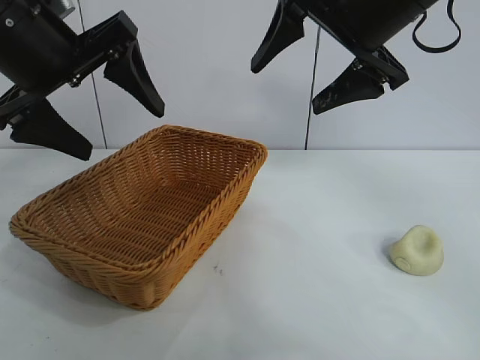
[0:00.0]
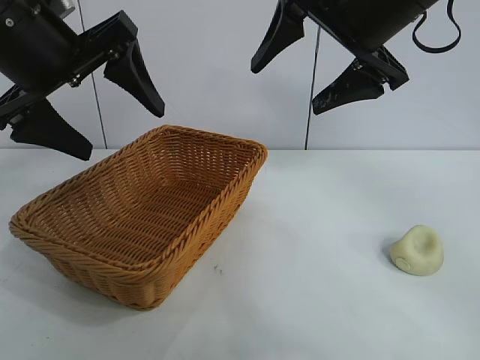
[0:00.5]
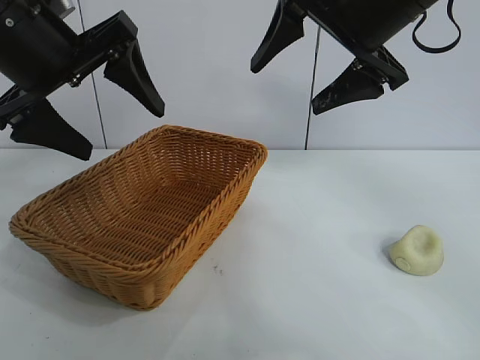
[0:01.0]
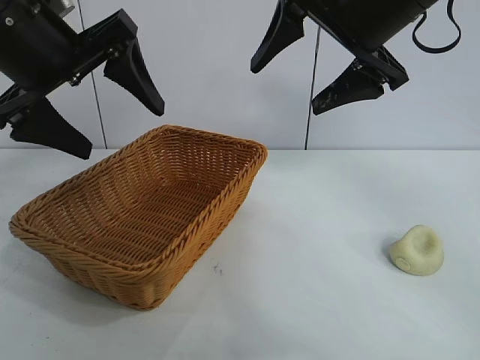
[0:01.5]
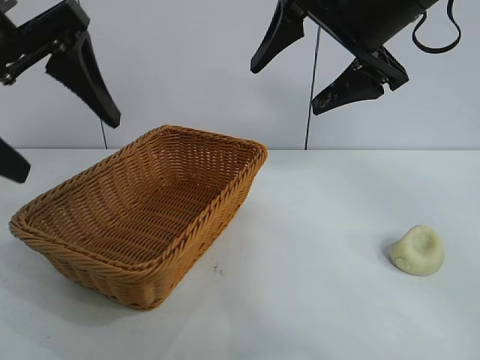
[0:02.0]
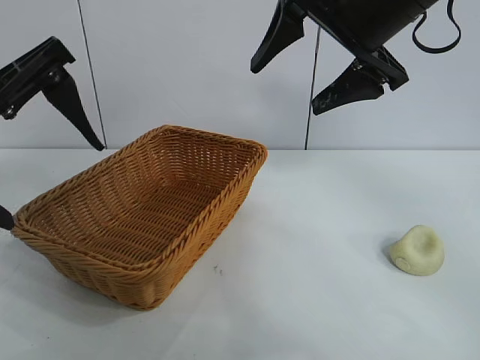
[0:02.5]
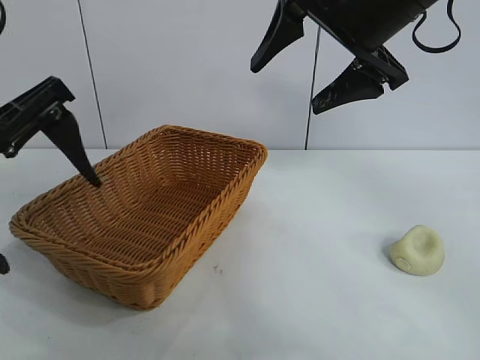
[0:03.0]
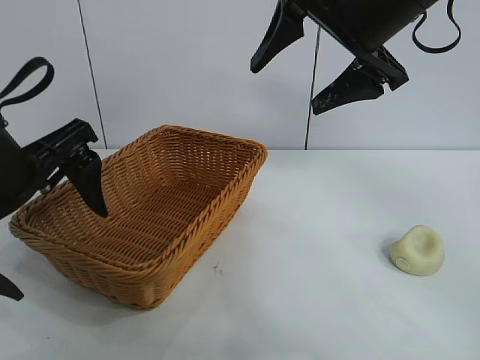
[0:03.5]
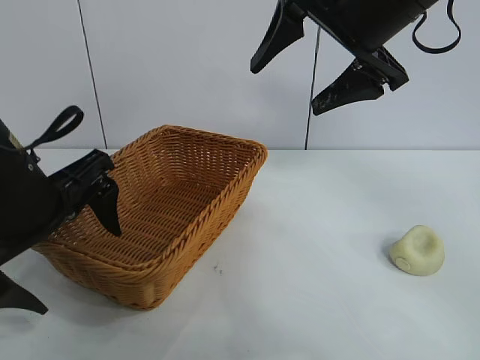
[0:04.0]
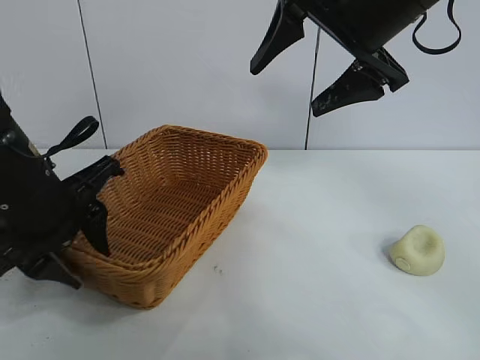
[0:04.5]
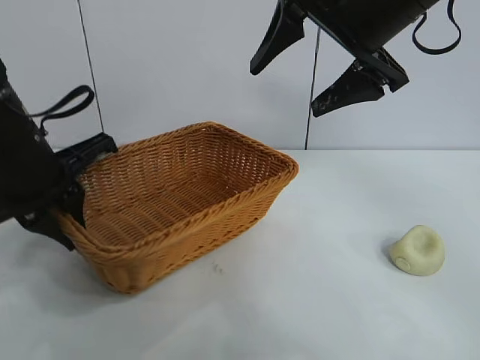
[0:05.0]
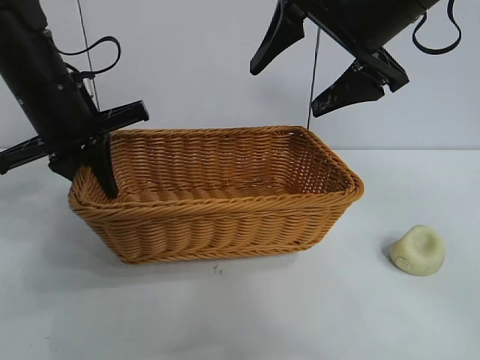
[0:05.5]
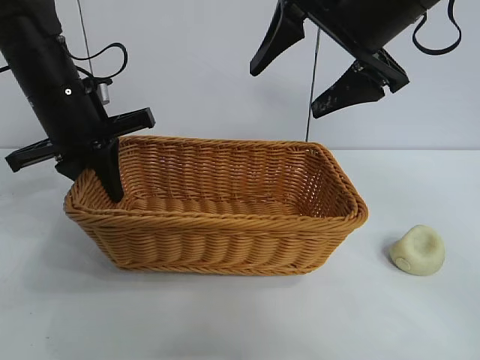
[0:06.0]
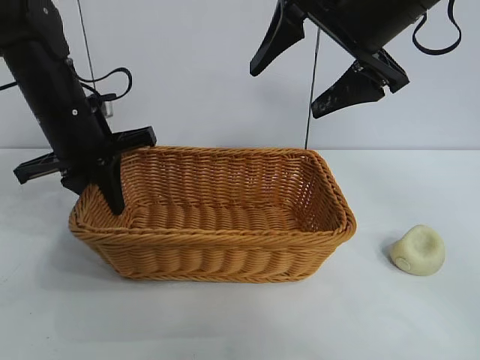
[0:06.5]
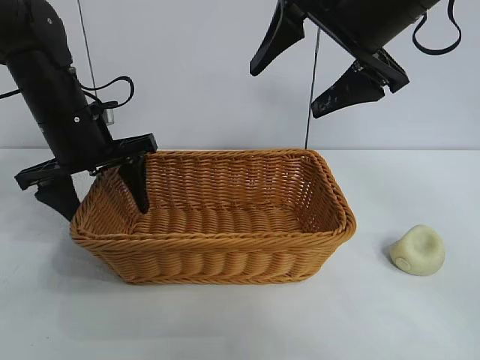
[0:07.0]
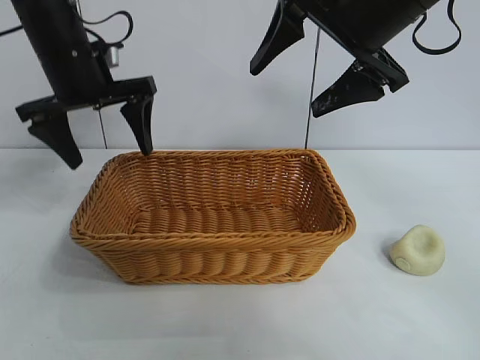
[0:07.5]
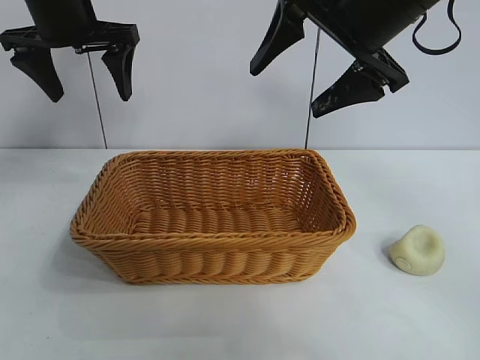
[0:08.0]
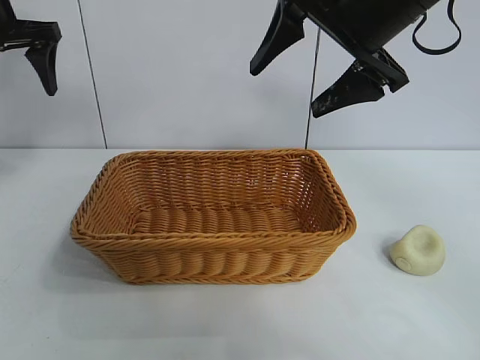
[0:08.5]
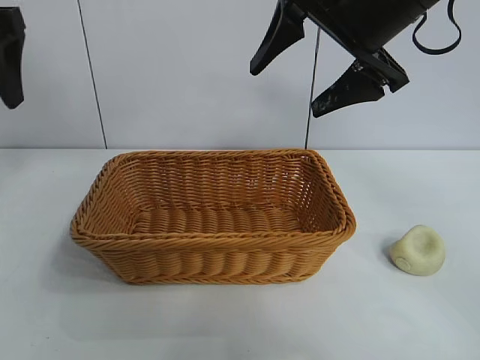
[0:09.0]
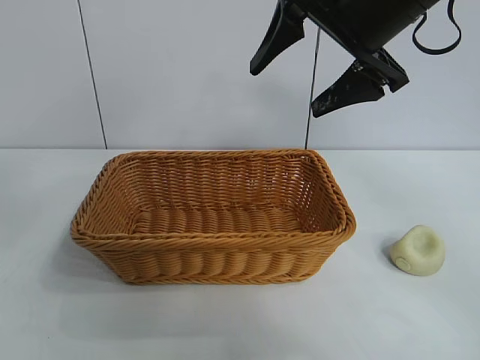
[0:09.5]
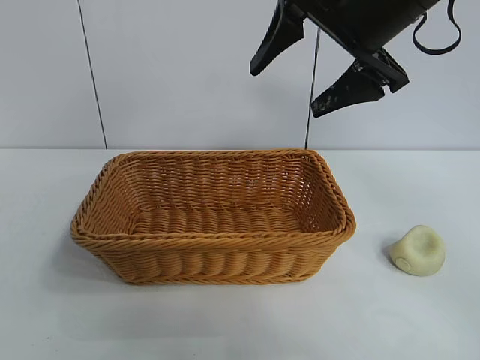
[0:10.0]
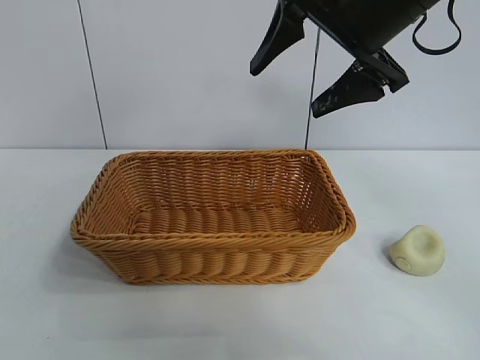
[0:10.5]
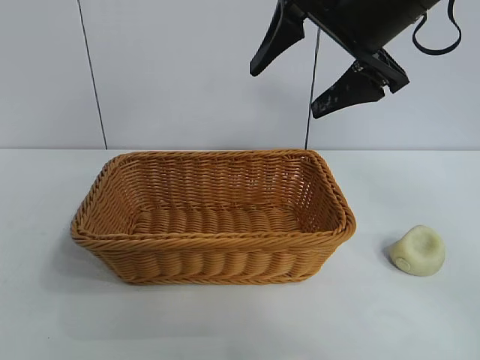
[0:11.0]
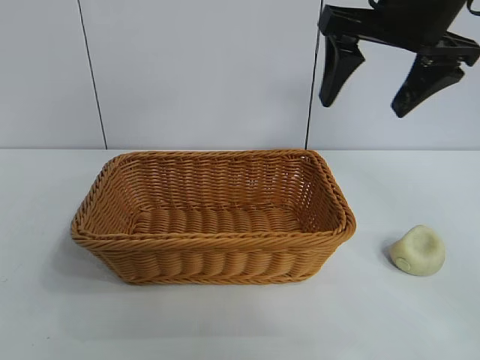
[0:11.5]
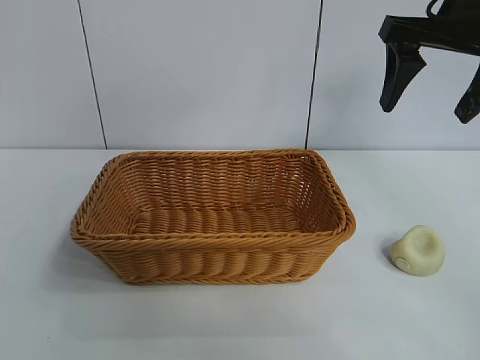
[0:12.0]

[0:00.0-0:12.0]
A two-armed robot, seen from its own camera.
Task of the whole recording: pick up the egg yolk pastry and put it into the basket.
Step, 0:01.5 to 0:04.5: Grasp the basket with left gripper.
Step, 0:05.0 to 0:07.0: Place the basket in the center of view with left gripper.

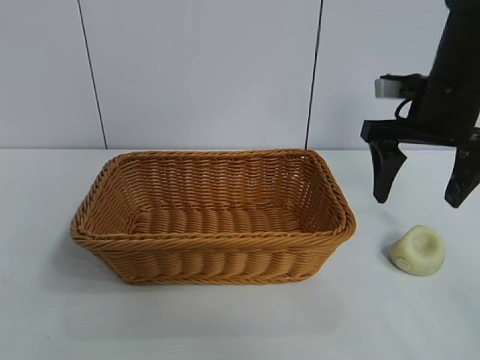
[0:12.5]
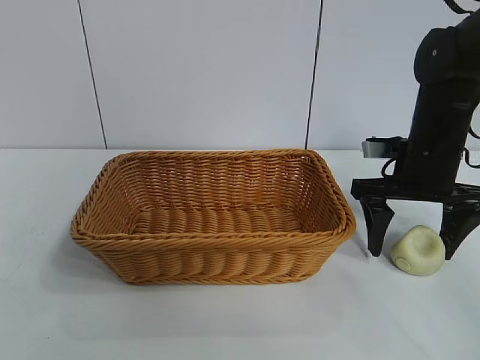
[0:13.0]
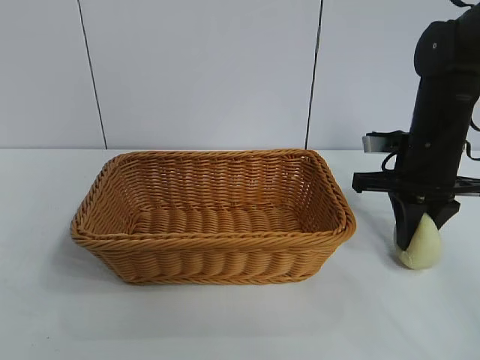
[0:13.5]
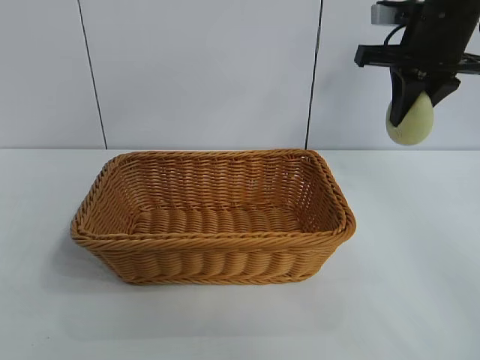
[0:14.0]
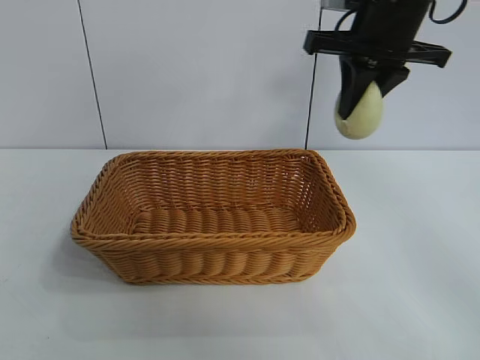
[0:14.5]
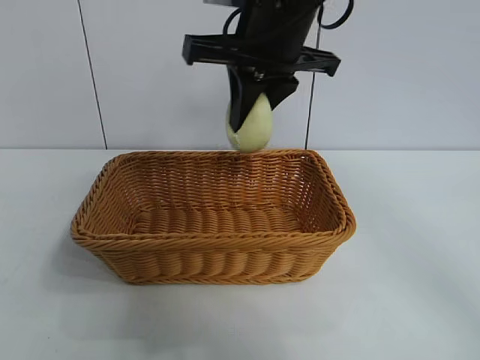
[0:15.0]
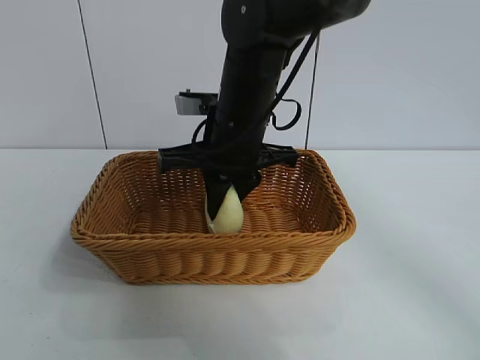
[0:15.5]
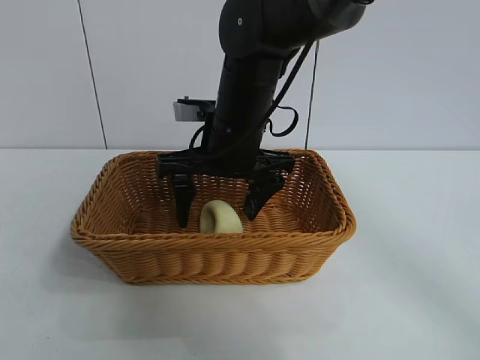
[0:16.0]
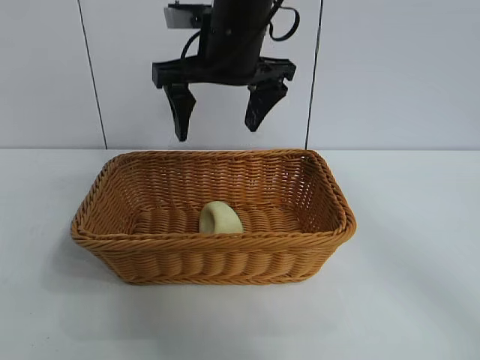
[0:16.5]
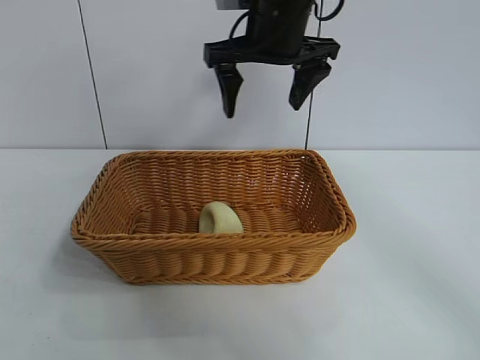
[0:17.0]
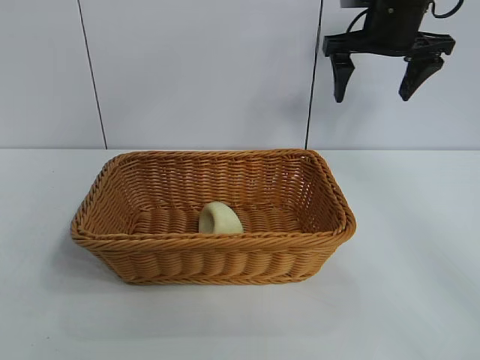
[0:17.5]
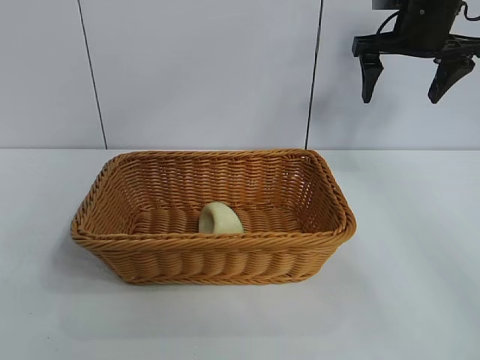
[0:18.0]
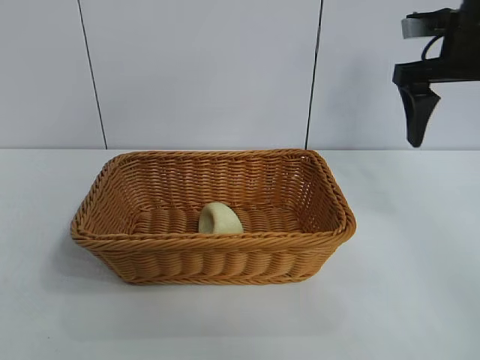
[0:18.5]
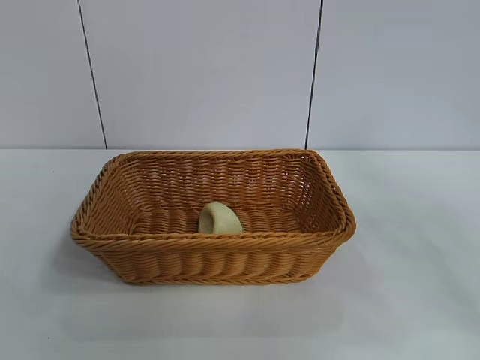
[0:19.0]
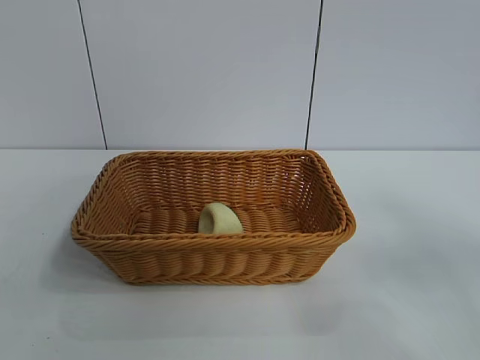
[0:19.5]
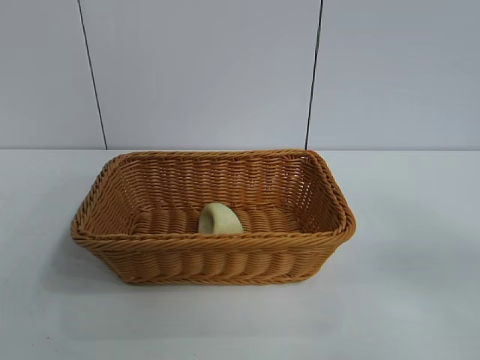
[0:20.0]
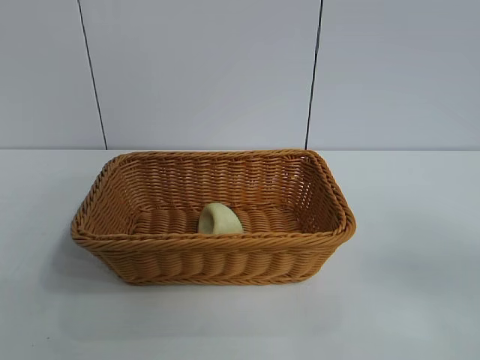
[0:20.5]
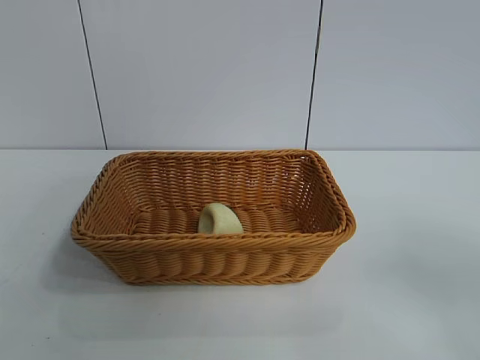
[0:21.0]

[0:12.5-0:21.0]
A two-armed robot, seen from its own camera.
Task of the whole recording: pick up the egg yolk pastry and put it into the basket.
Step, 0:14.0 to 0:16.0: Place the egg yolk pastry in the basket with right gripper.
